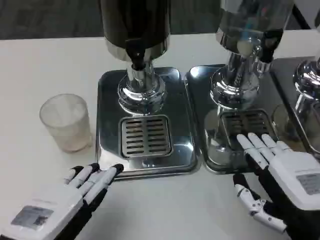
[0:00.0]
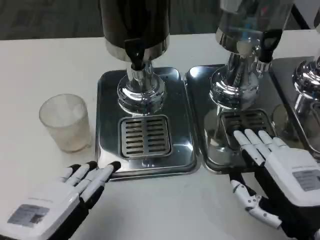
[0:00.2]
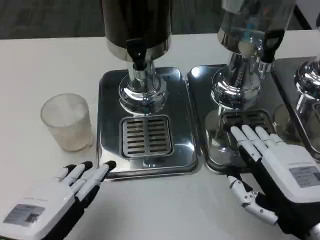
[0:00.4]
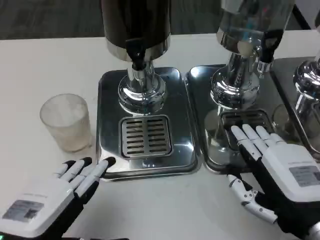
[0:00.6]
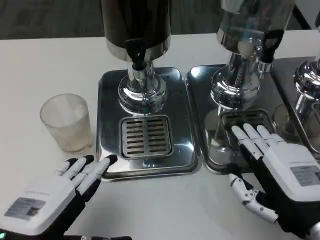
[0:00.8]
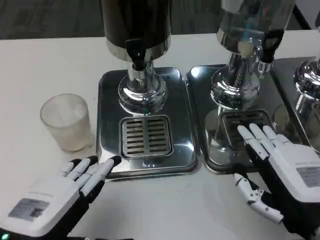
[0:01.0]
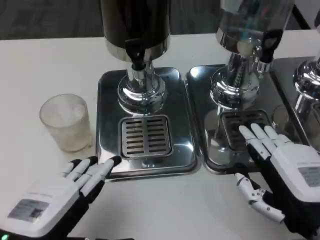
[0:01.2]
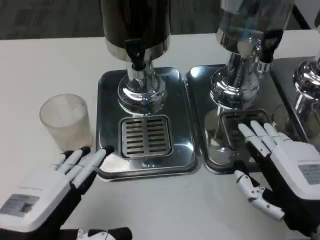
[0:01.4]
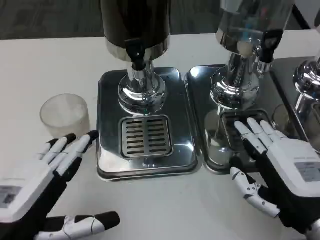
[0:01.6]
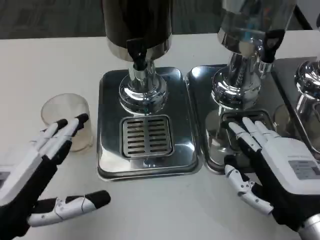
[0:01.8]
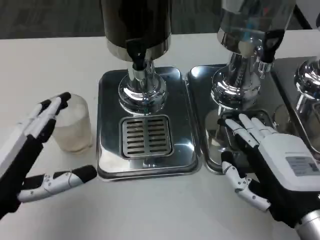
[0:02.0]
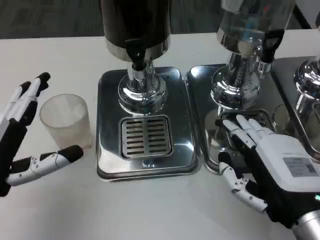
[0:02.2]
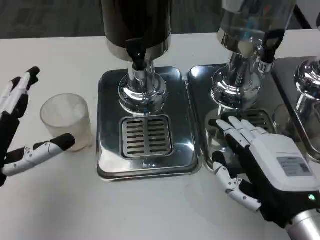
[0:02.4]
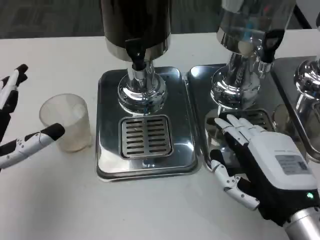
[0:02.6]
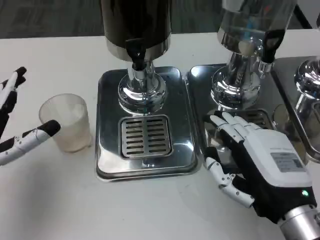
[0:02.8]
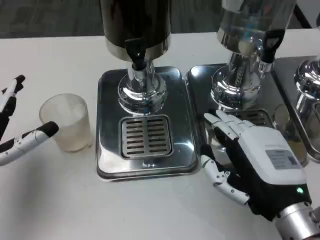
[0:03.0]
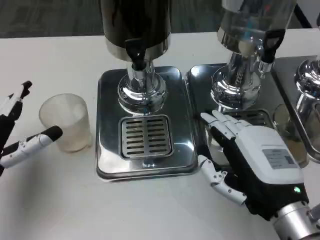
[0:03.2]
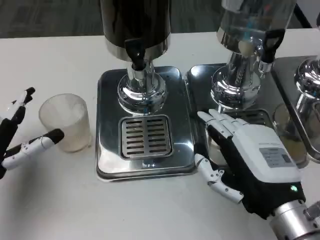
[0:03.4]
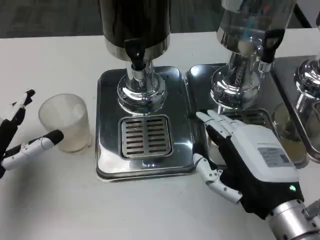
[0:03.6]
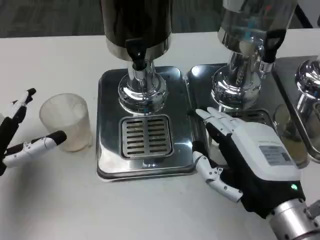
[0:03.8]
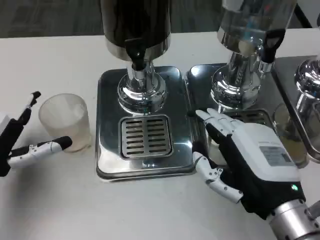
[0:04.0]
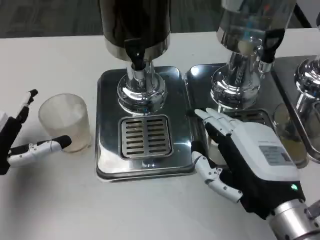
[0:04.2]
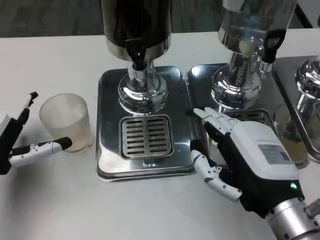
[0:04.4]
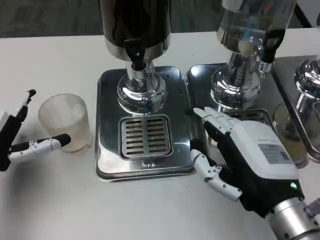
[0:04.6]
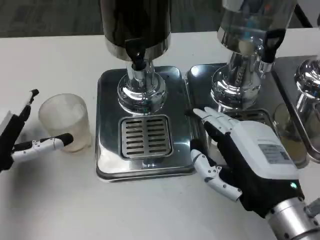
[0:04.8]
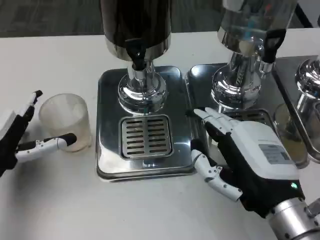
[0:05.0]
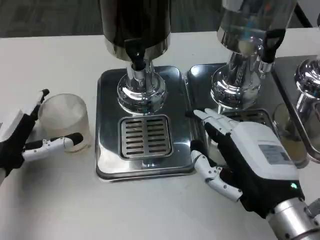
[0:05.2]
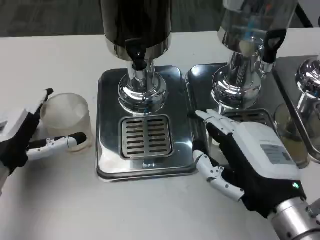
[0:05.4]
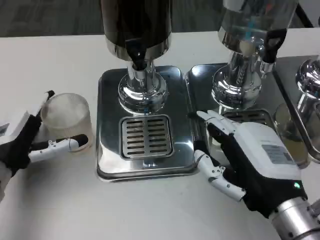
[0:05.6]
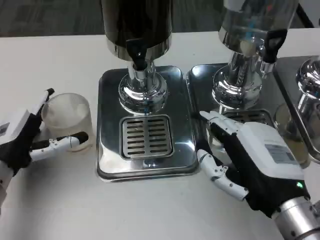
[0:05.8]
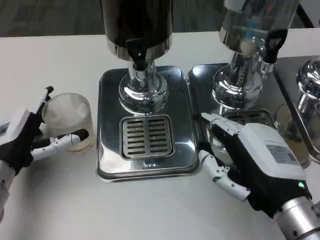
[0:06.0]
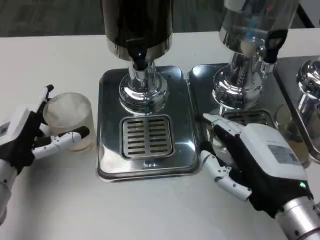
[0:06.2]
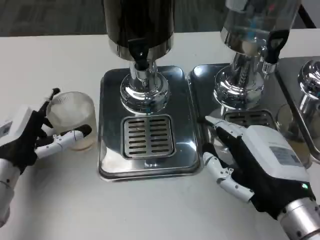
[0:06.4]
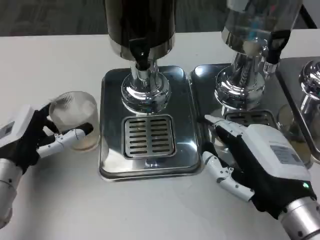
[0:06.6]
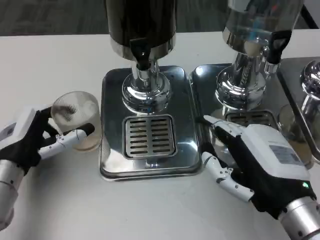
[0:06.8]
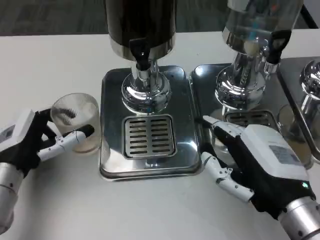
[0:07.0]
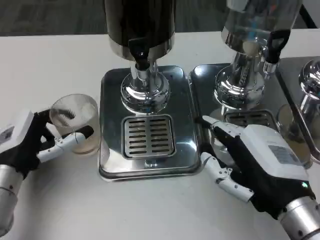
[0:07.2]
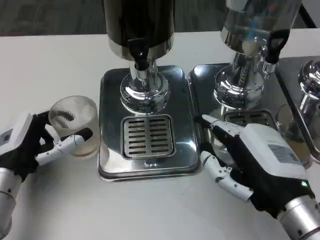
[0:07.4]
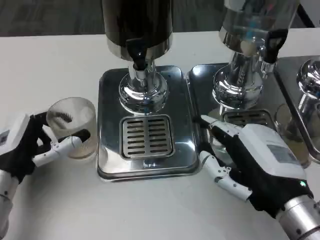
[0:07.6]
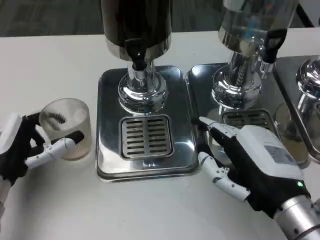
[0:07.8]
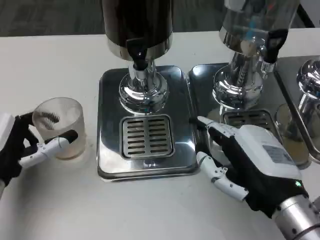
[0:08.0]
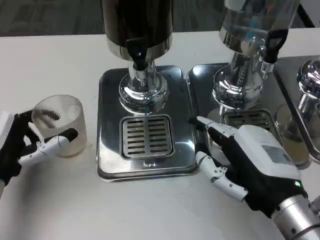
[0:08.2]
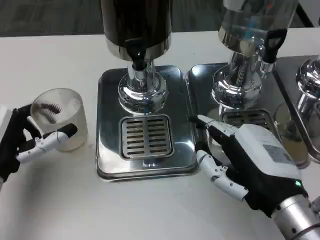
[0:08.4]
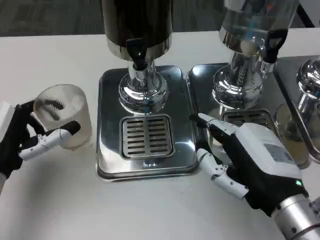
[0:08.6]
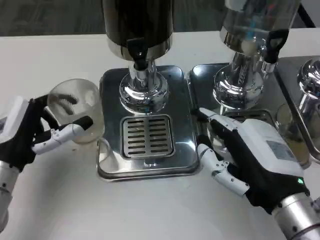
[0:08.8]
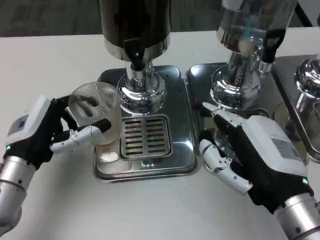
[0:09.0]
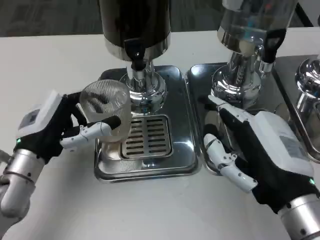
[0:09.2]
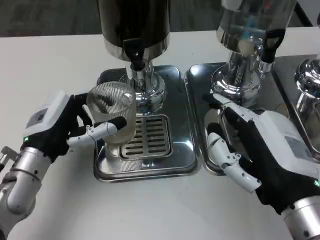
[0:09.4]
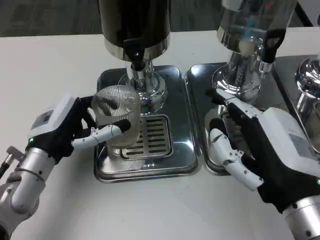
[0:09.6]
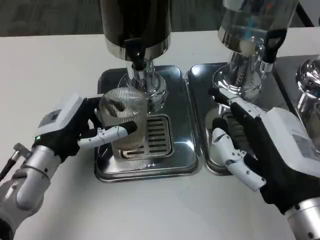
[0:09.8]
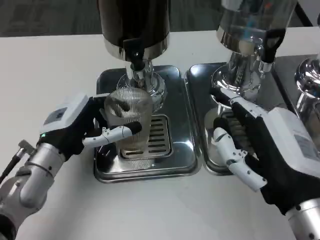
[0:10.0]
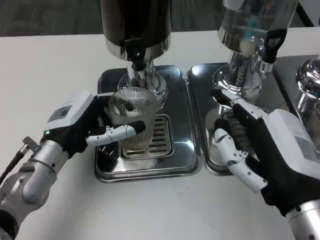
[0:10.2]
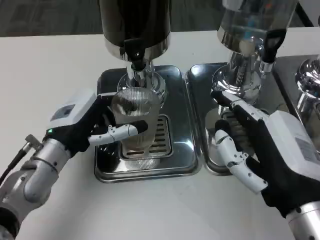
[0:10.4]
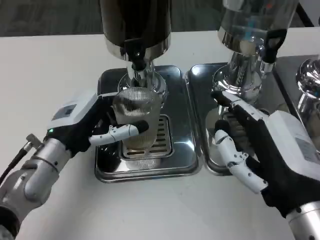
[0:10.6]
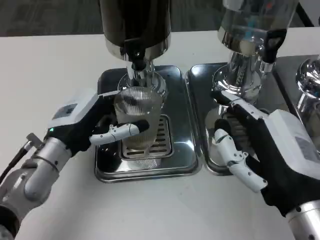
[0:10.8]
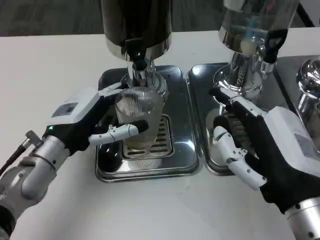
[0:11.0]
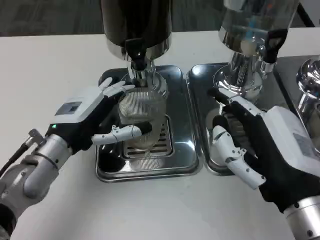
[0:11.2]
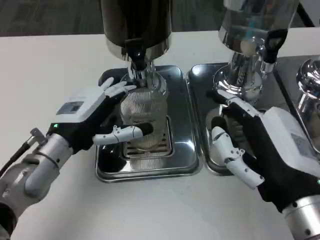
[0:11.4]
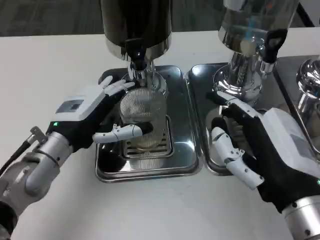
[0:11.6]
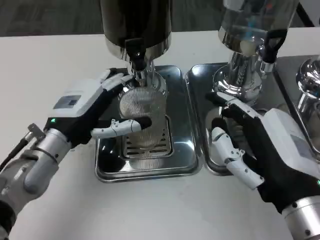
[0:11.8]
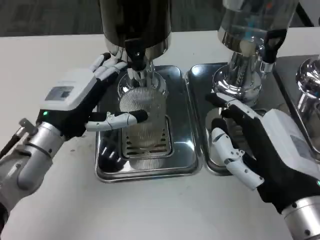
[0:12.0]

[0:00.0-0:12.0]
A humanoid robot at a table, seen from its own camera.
Task of the whole recording: Grasp the cup under the faucet to collect the drink, then remove the cup.
0:00.0 to 0:01.6: The hands move only a little.
0:01.6 to 0:03.0: The left hand travels forward and to the left by about 10 cm.
0:03.0 to 0:06.0: The hands make only small movements.
0:06.0 to 0:07.6: The hands stay close to where they were, moving slightly.
0:09.0 to 0:10.4: The left hand ends up about 5 cm from where it was.
0:10.4 to 0:12.0: There are only small adjustments of the hands.

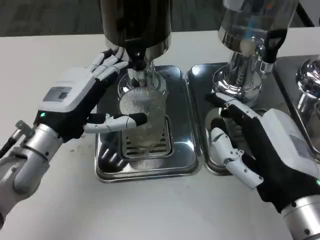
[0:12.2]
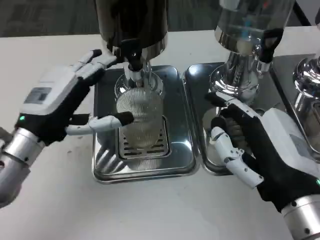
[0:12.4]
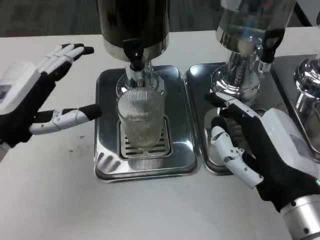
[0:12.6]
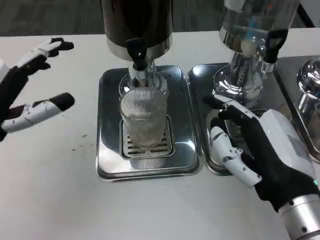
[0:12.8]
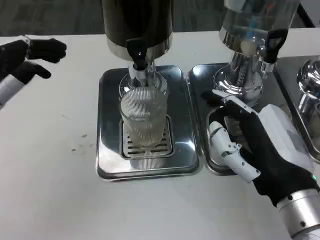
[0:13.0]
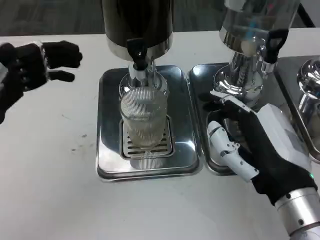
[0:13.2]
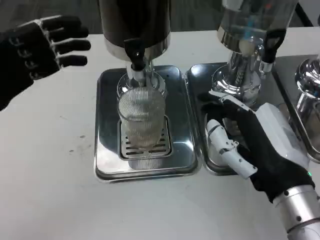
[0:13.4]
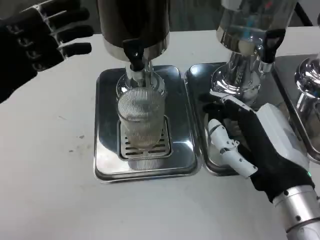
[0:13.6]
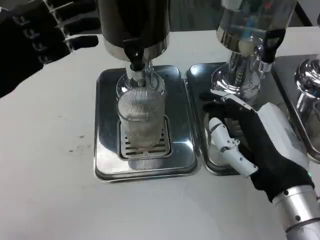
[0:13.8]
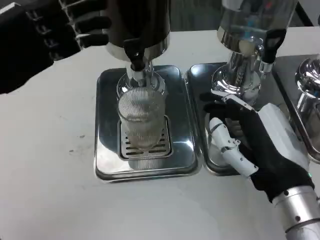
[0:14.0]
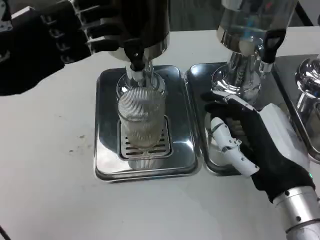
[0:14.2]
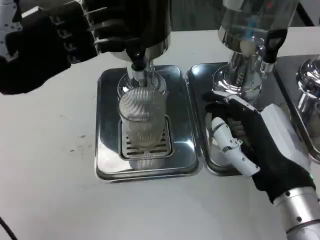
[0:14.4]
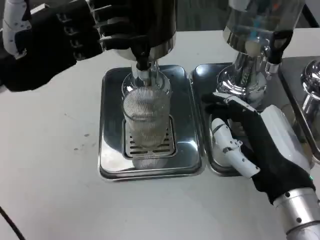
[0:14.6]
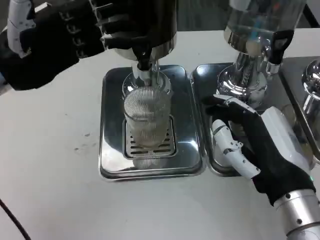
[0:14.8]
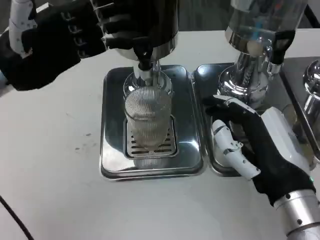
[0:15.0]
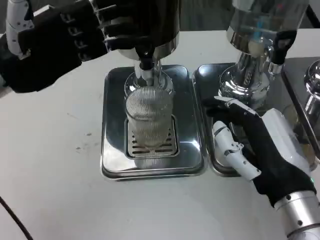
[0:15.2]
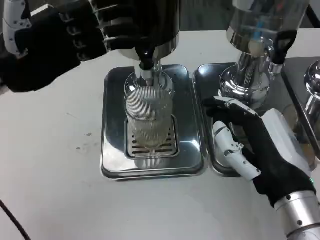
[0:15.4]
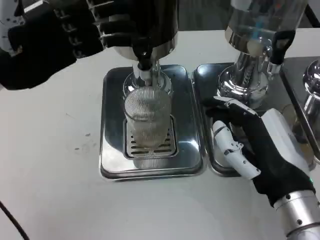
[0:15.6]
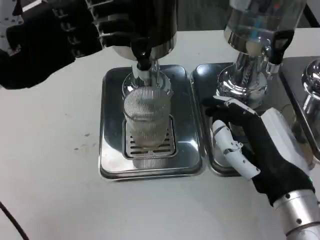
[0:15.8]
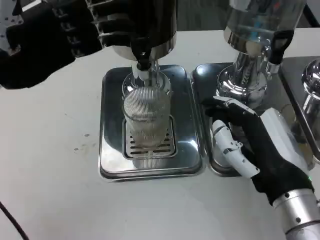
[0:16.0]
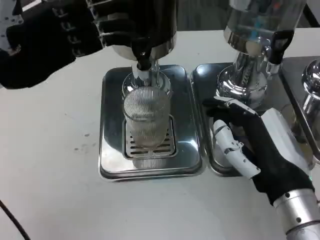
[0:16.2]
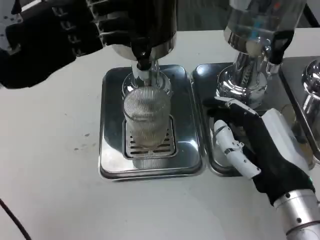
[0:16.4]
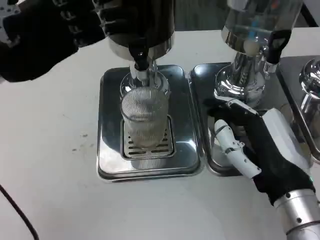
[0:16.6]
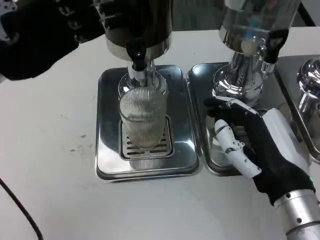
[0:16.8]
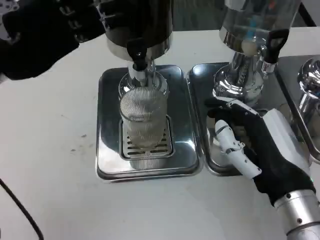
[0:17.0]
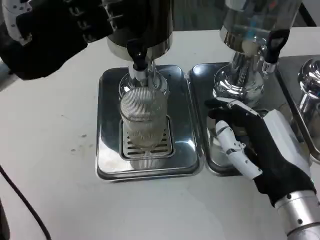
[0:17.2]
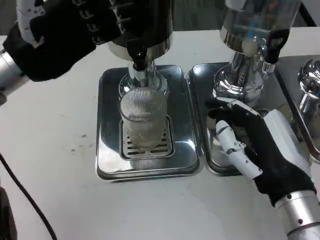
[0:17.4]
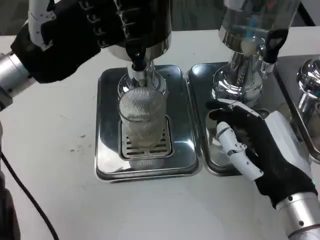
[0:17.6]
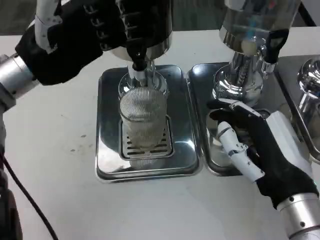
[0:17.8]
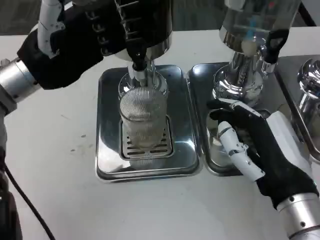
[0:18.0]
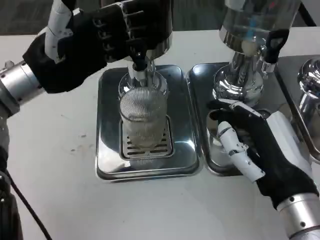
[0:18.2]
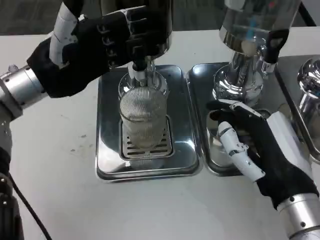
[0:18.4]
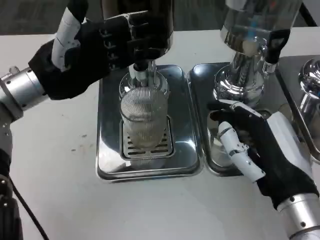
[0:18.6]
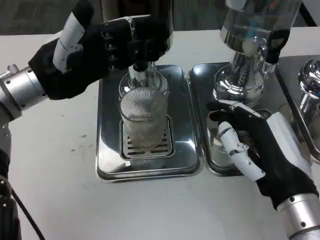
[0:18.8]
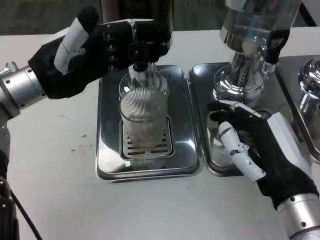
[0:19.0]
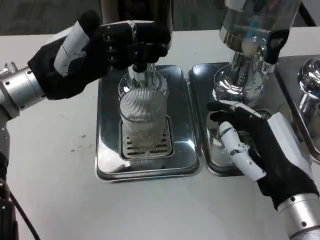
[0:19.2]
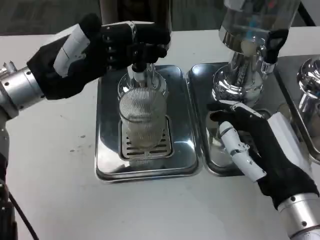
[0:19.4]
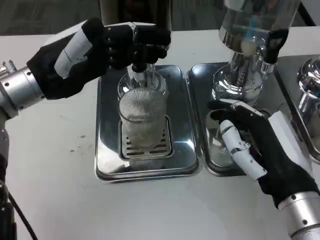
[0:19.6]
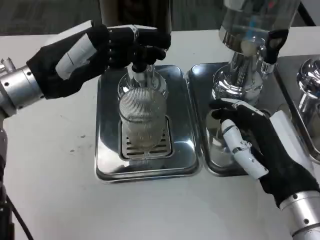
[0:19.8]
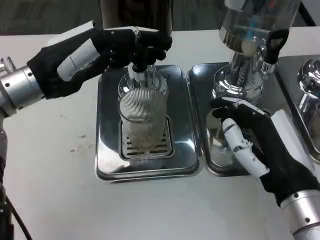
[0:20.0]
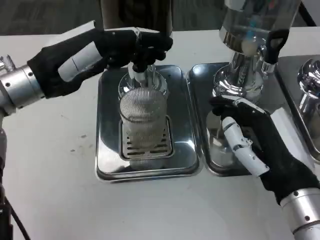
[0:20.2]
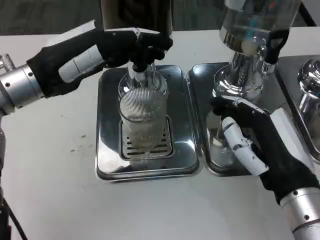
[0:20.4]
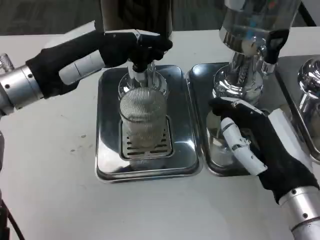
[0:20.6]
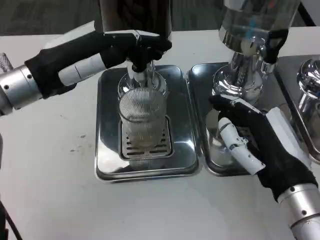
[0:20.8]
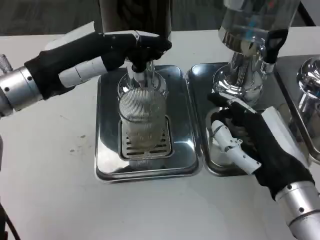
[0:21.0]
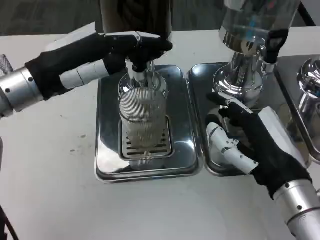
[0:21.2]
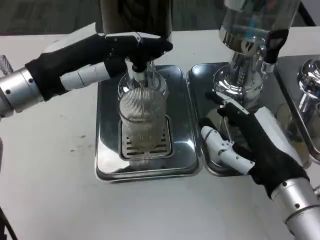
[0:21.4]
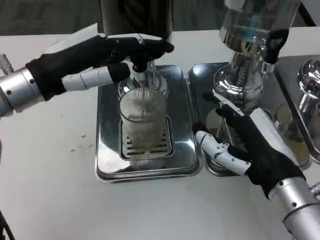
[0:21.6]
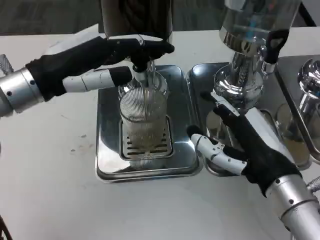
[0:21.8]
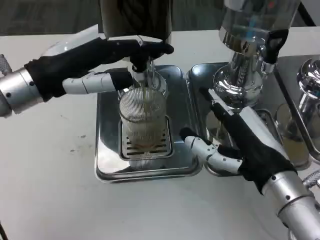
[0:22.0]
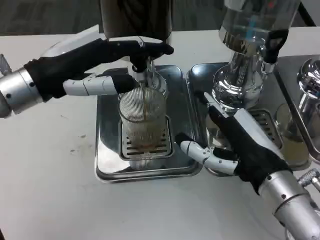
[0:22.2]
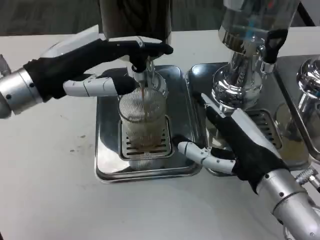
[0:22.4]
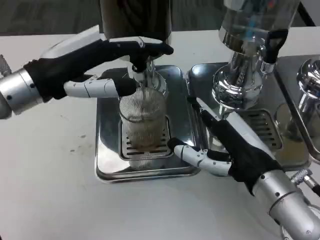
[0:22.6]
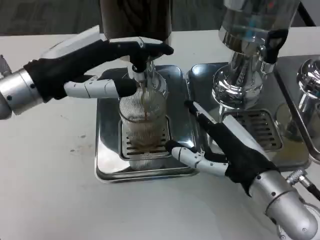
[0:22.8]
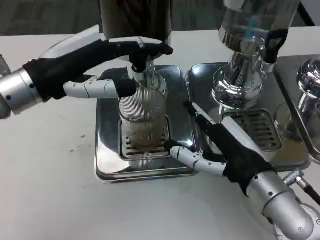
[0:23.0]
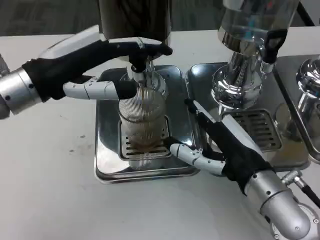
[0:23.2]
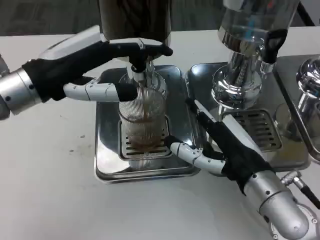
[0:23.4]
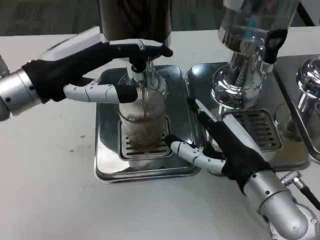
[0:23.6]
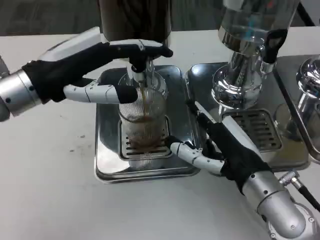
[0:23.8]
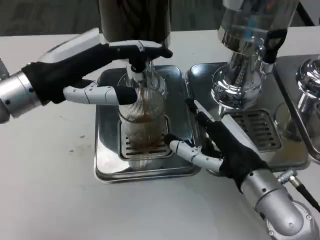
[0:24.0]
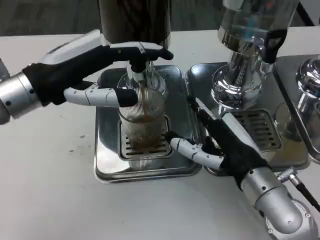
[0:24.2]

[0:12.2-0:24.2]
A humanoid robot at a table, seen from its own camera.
Task of the whole recording: Grasp the cup under the faucet to collect the drink, then remove the cup.
0:12.2 to 0:13.8: The left hand heads upward and to the left, covering some 15 cm.
0:19.8 to 0:21.2: The hands stay close to where they were, moving slightly.
0:21.2 to 0:24.2: The hands stay close to where they were, moving slightly.
